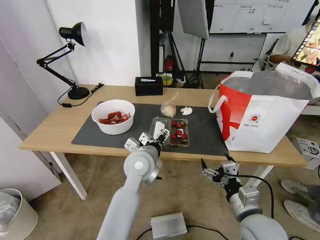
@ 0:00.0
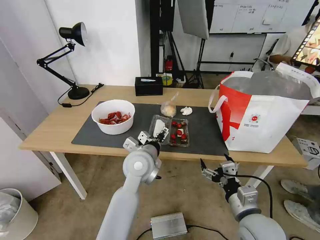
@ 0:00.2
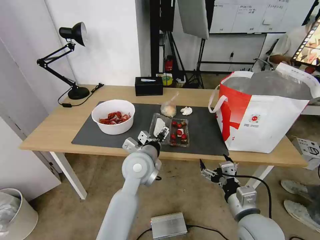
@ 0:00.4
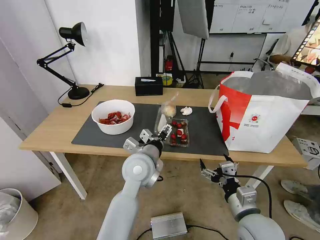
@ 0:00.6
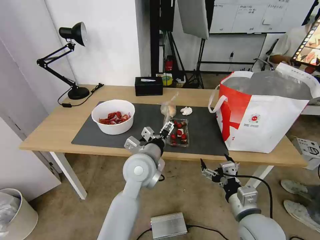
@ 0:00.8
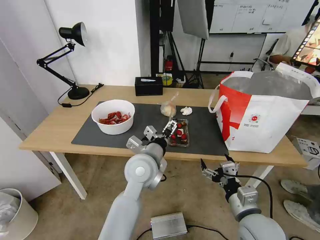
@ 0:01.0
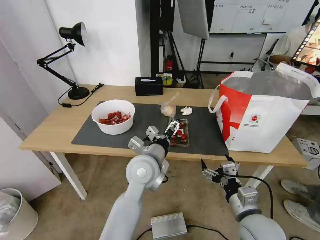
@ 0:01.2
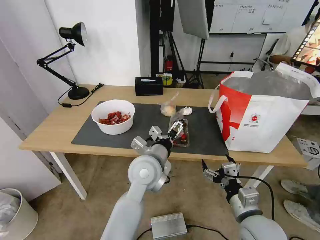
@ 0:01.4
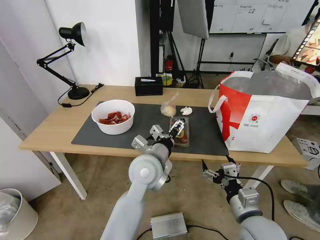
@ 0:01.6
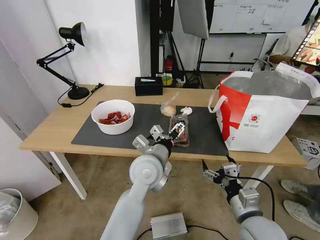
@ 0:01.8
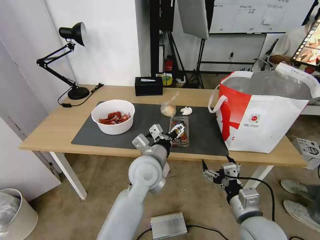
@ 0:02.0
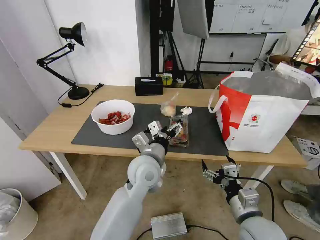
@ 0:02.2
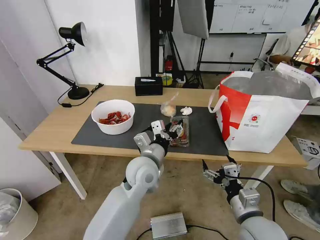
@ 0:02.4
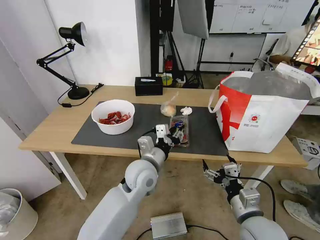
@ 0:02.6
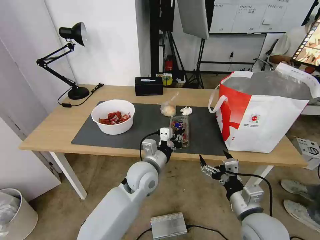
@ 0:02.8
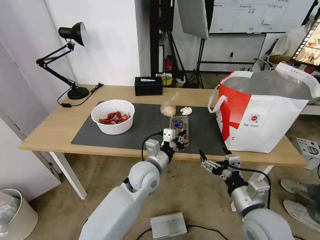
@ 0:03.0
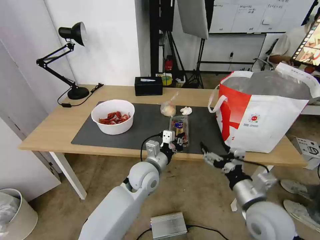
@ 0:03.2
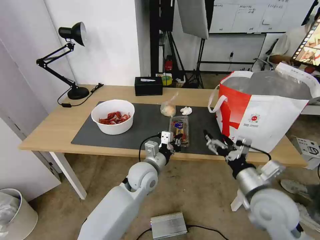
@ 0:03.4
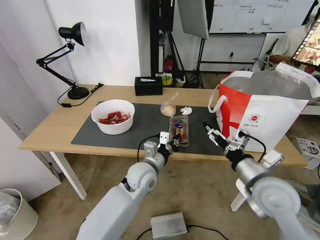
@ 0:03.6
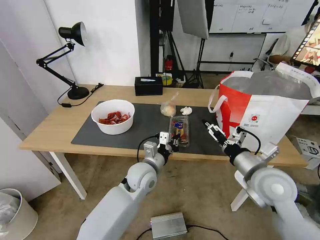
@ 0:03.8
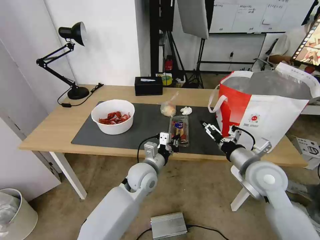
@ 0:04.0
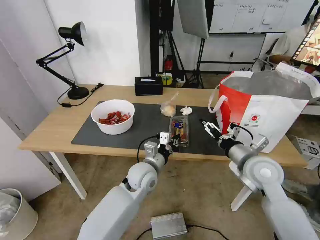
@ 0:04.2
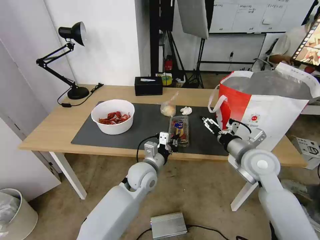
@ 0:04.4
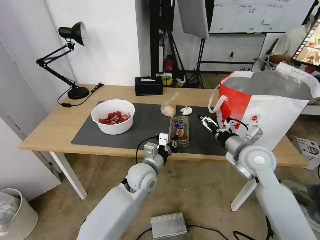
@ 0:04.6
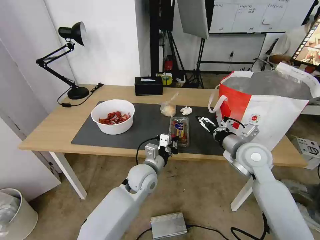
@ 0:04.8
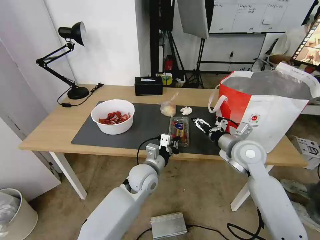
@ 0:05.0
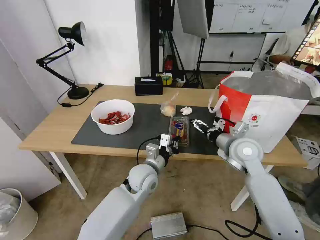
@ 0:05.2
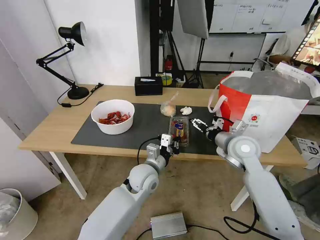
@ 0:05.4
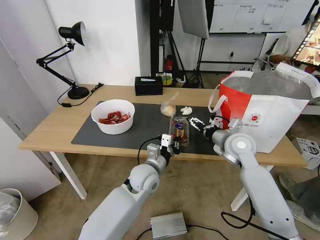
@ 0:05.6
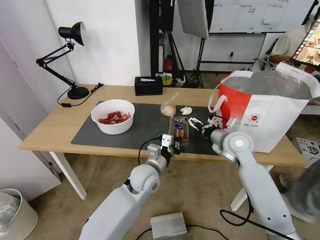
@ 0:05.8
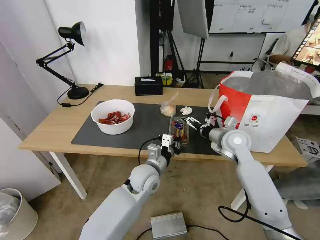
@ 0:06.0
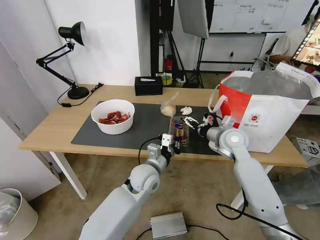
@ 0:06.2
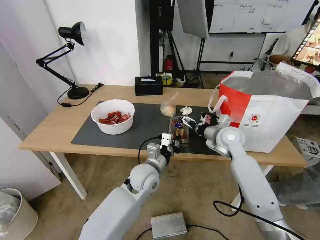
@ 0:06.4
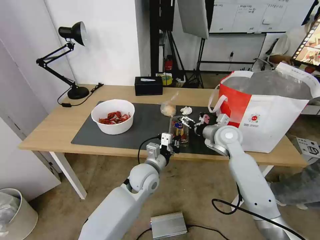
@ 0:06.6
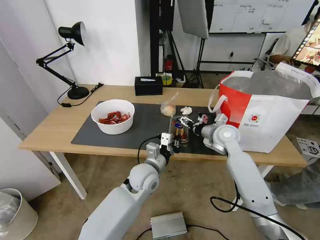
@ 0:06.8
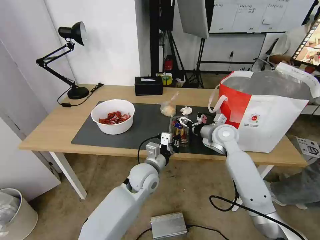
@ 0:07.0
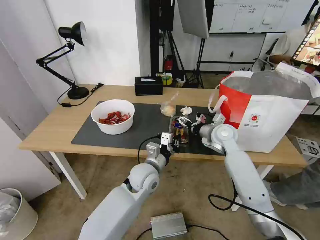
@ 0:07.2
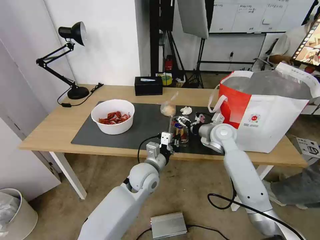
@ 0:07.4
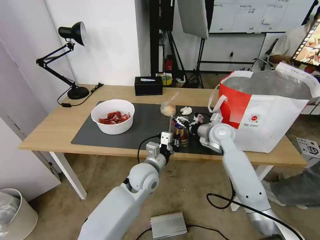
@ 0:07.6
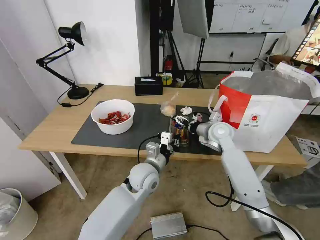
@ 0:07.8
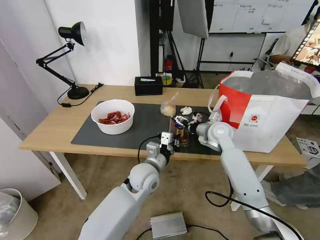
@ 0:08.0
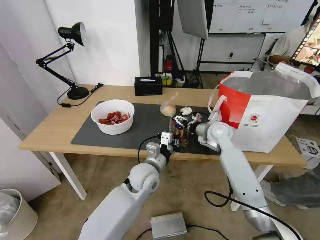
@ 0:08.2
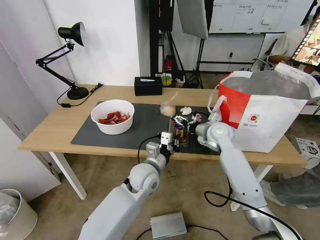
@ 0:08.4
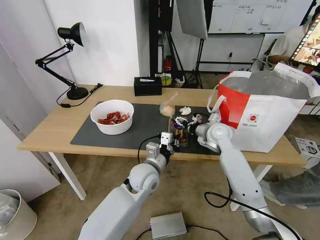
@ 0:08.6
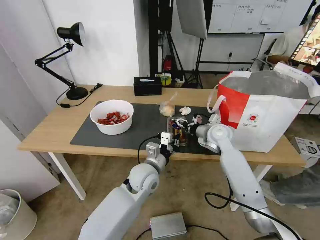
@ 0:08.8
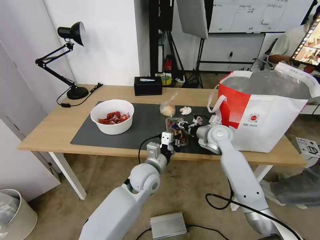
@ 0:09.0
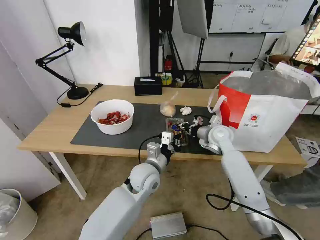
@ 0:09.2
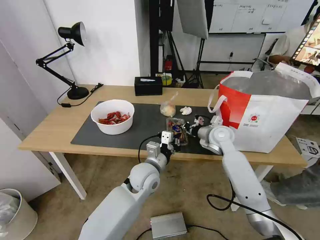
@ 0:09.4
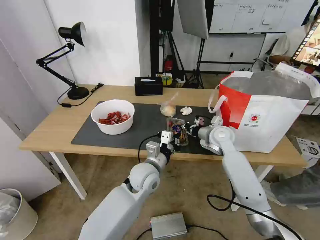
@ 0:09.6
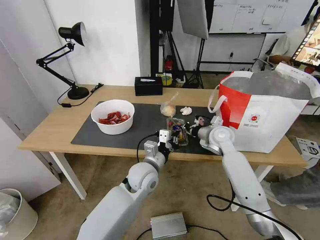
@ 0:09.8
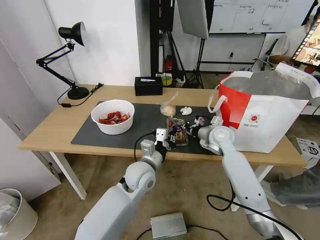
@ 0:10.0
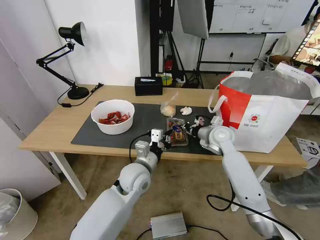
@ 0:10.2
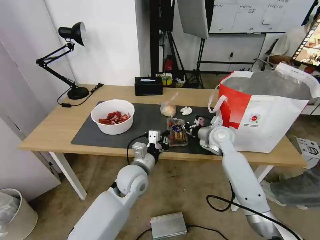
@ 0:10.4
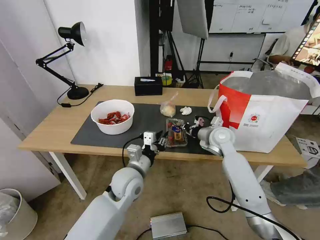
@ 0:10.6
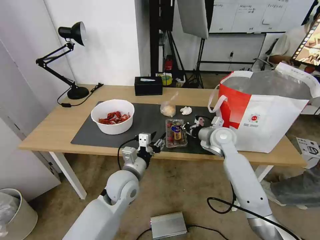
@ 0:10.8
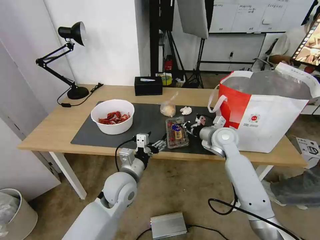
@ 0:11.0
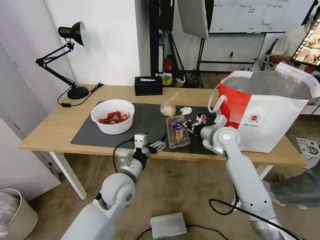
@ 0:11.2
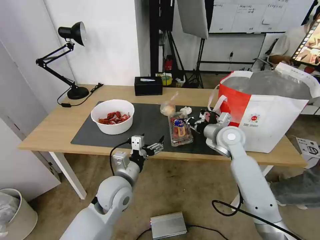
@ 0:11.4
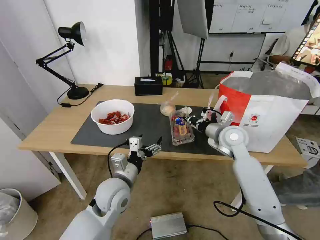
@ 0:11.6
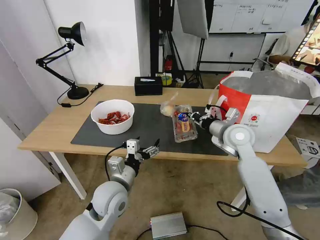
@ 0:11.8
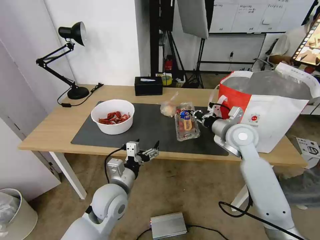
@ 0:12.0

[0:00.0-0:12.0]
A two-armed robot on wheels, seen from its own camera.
Task of the whole recording: Pick up the trash from the table and place it into the takeout bag.
0:00.0 to 0:01.6: The grippers move only a little.
0:01.6 to 0:03.0: The left gripper moves downward, some 5 cm, and closes.
0:03.0 to 0:04.4: The right gripper is displaced forward and upward by about 15 cm.
0:04.4 to 0:06.0: The right gripper goes roughly 10 cm forward.
0:06.0 to 0:07.6: The right gripper shifts by about 5 cm.
0:07.6 to 0:09.0: The right gripper closes its fingers.
0:09.0 to 0:10.4: The right gripper closes up.
0:10.4 to 0:12.0: The left gripper travels backward and to the left by some 10 cm, and opens up, while the right gripper travels upward and backward by approximately 10 cm.

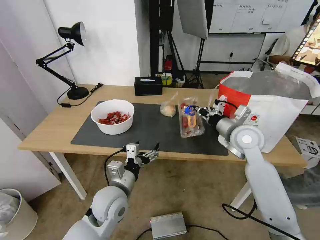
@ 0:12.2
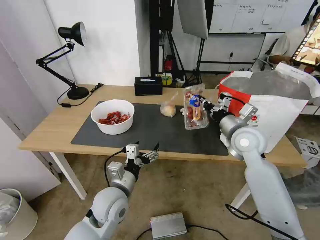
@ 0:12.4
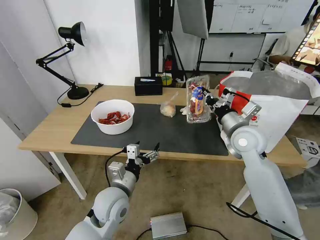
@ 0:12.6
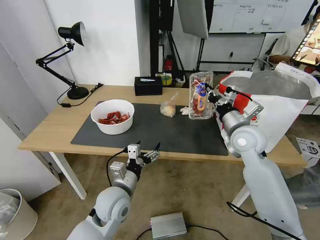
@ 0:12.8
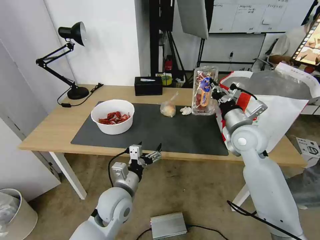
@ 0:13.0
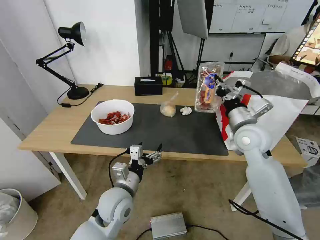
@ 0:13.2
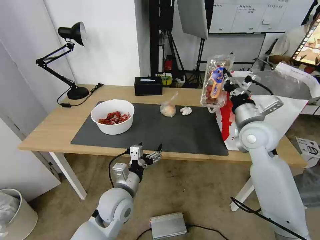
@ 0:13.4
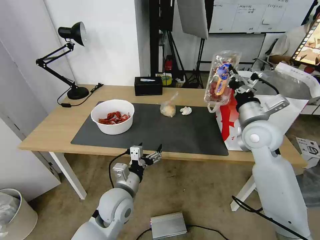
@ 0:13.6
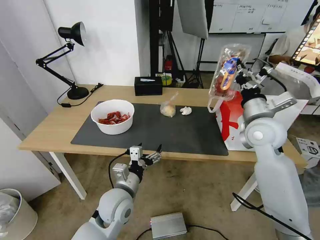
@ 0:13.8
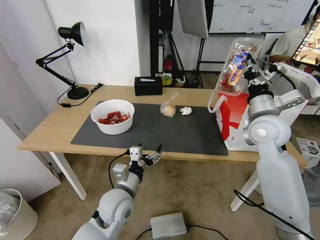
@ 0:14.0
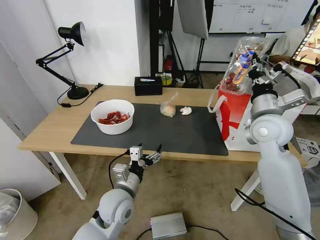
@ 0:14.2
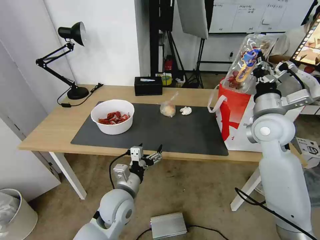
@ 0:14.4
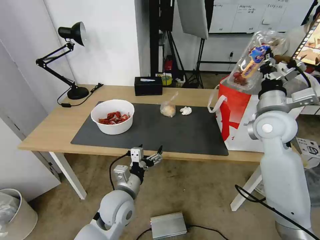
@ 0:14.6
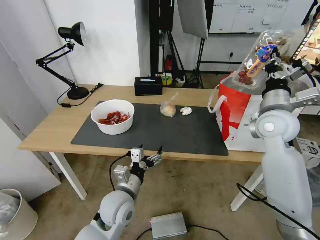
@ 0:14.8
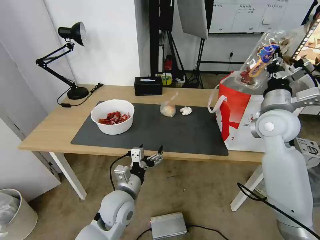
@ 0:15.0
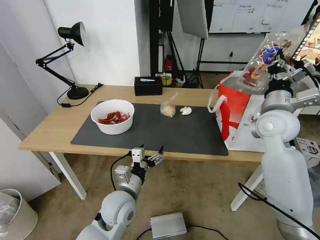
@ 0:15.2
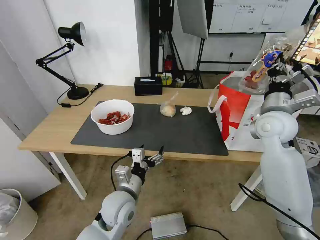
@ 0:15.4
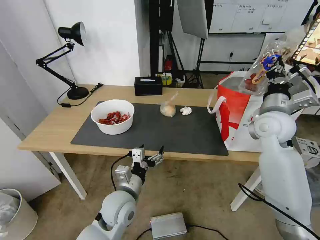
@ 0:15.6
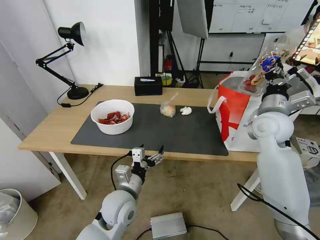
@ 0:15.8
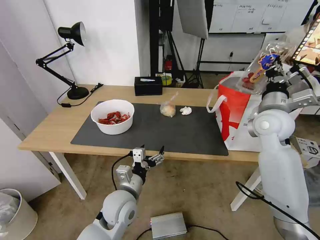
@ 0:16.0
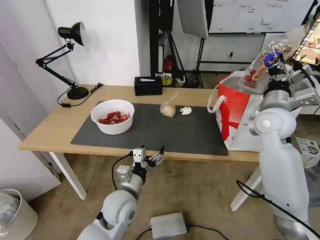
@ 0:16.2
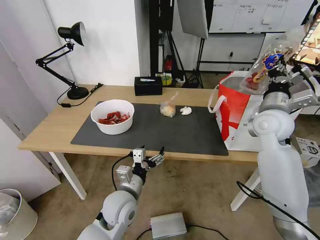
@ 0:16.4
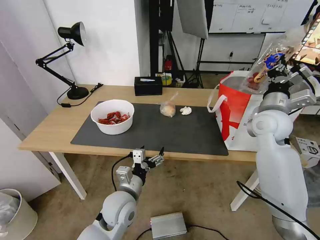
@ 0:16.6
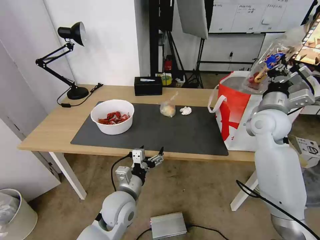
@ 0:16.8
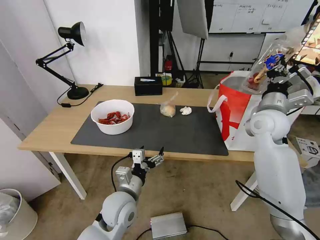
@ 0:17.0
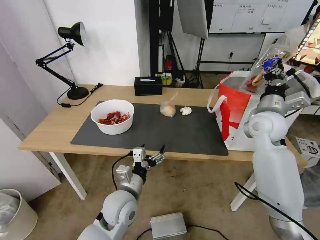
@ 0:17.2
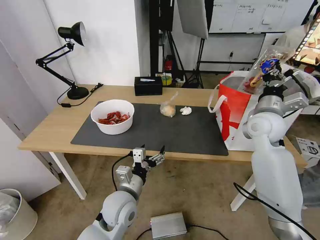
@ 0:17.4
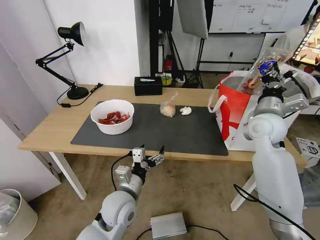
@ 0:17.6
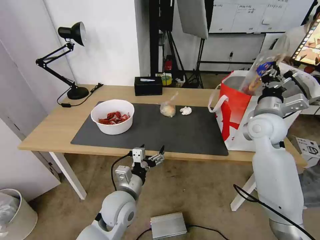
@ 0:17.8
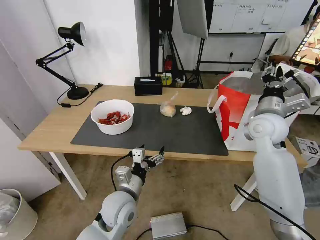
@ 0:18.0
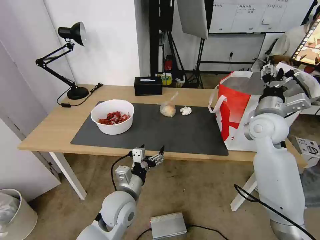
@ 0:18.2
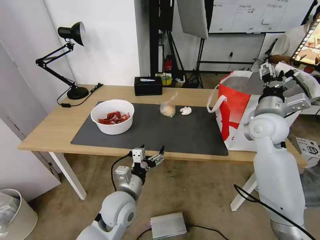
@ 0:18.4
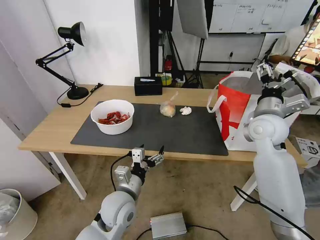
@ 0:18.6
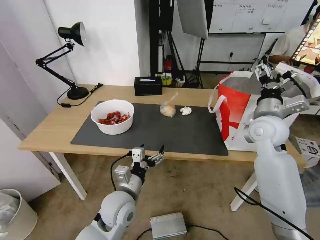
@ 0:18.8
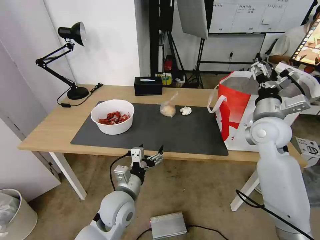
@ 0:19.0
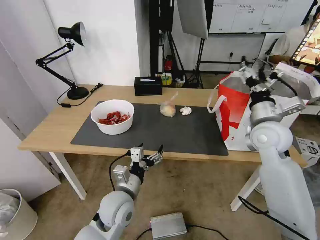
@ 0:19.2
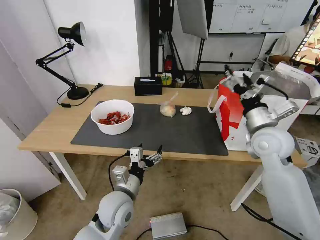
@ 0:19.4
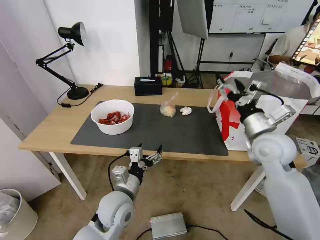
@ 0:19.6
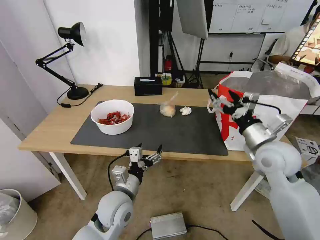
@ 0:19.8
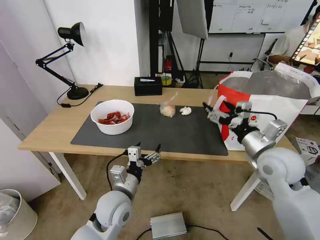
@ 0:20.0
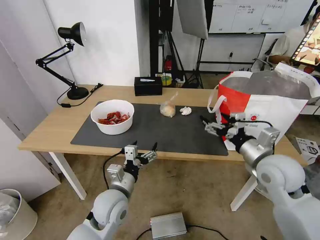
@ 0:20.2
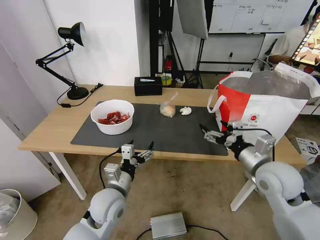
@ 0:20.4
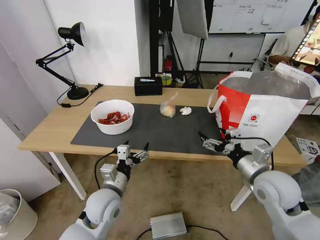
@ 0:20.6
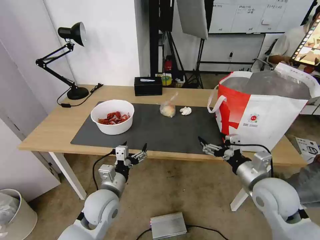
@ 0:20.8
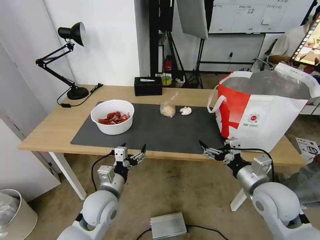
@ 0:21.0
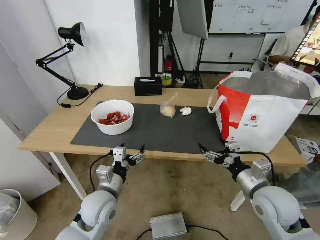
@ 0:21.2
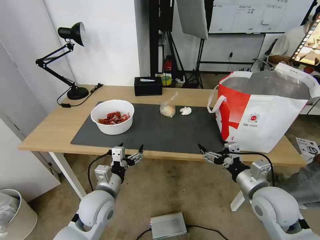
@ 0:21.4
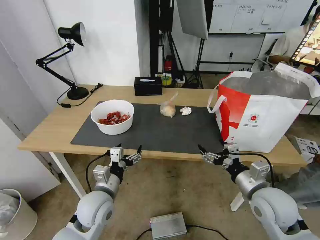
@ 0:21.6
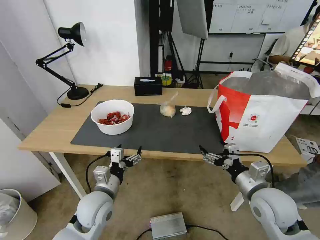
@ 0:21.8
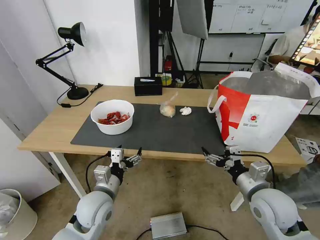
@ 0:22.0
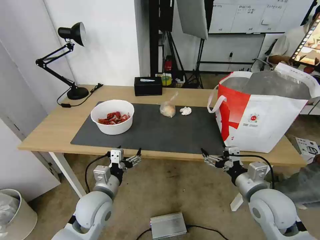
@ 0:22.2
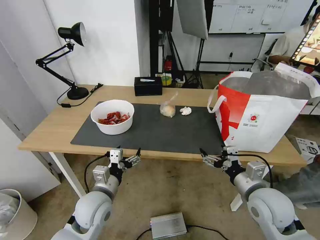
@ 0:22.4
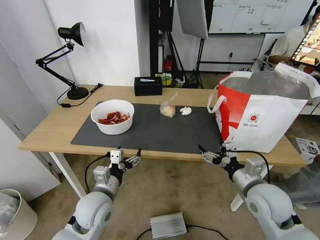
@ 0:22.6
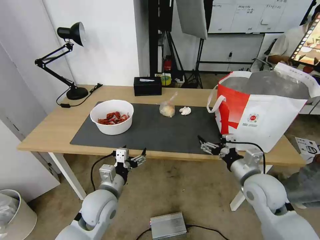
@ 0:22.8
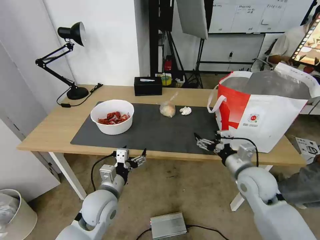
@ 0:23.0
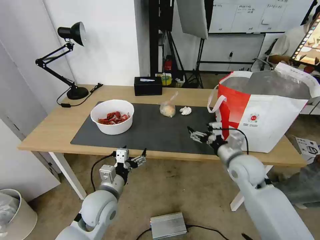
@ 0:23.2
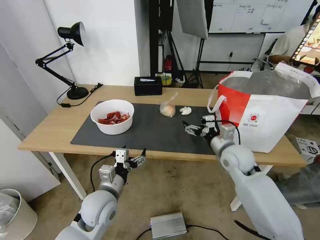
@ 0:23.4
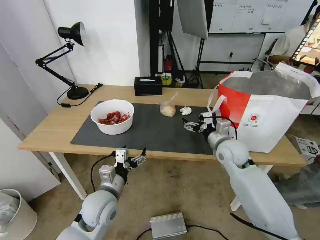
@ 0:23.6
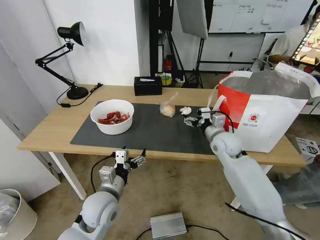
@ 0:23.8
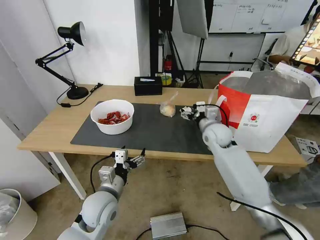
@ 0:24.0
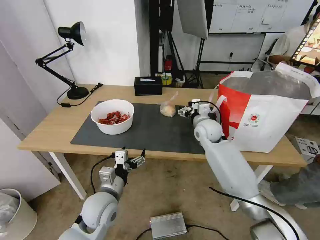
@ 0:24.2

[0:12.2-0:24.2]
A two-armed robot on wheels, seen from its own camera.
Task of the whole recording: Pick up the trash from the table and place it into the takeout bag.
0:15.2 to 0:16.6: The grippers stay close to where they were, moving slightly.
0:16.6 to 0:18.2: The right gripper opens up.
0:18.2 to 0:19.8: The right gripper shifts about 10 cm backward, and opens its fingers.
0:19.8 to 0:21.2: The right gripper moves backward and downward, some 10 cm.
0:21.2 to 0:22.6: The grippers move only a little.
0:22.6 to 0:24.2: The right gripper is displaced forward by some 25 cm.
